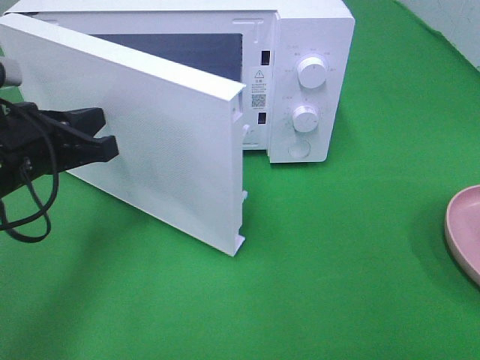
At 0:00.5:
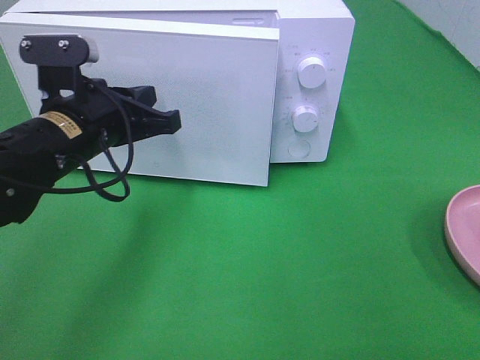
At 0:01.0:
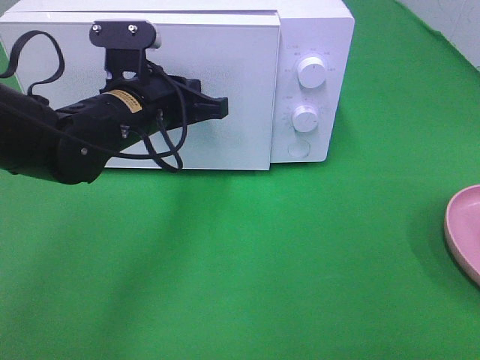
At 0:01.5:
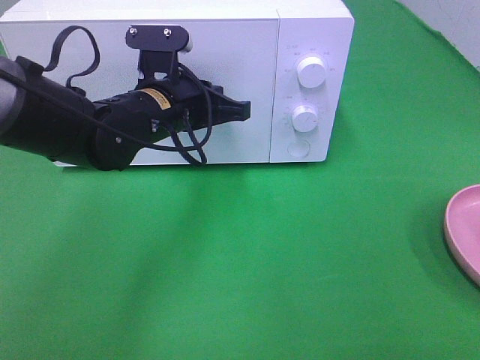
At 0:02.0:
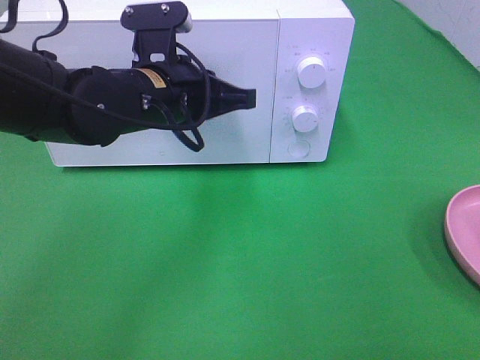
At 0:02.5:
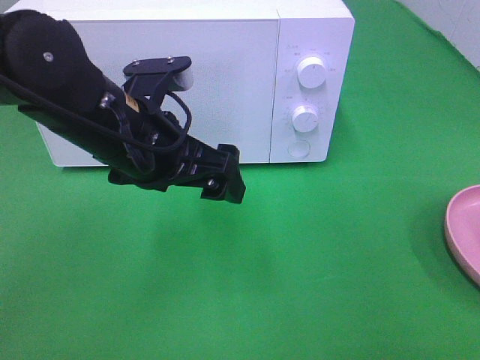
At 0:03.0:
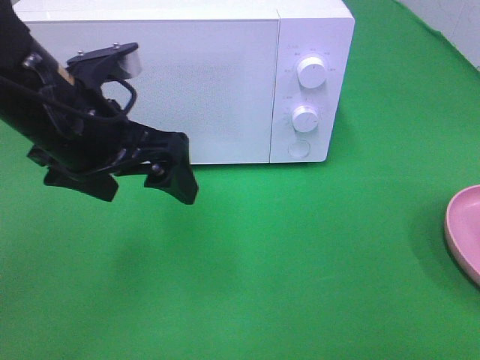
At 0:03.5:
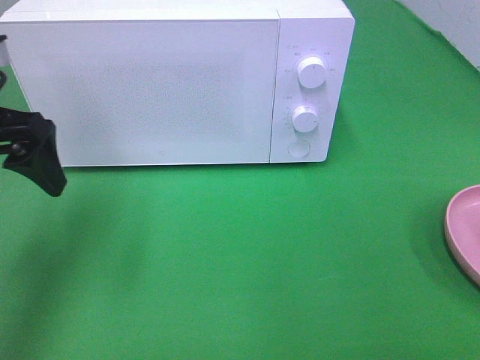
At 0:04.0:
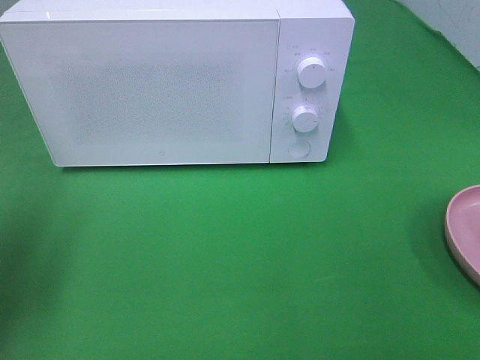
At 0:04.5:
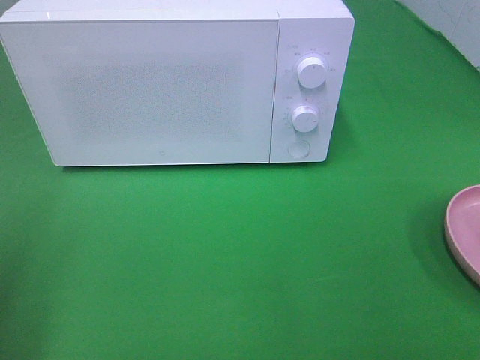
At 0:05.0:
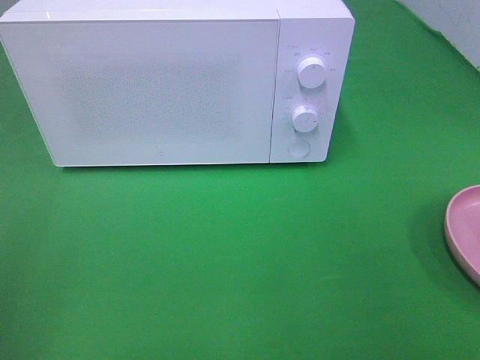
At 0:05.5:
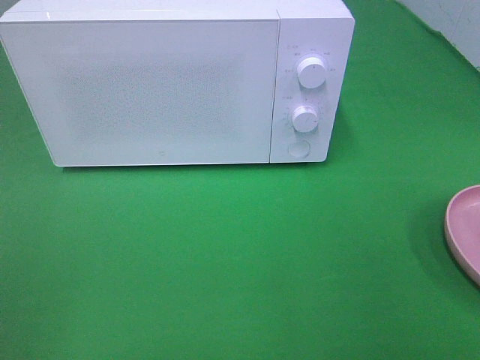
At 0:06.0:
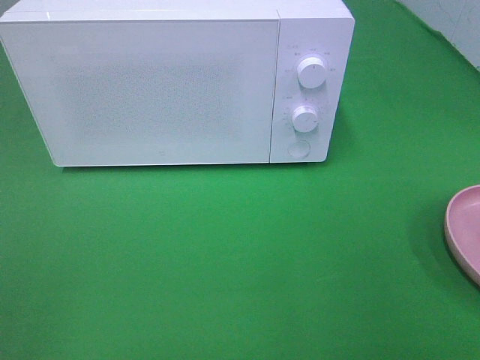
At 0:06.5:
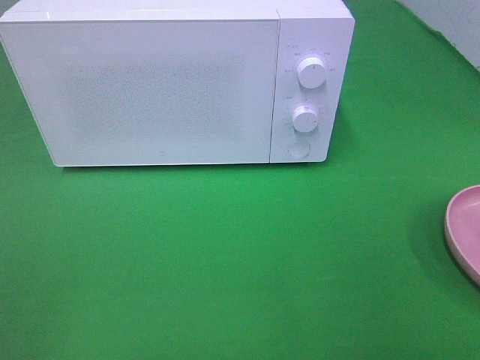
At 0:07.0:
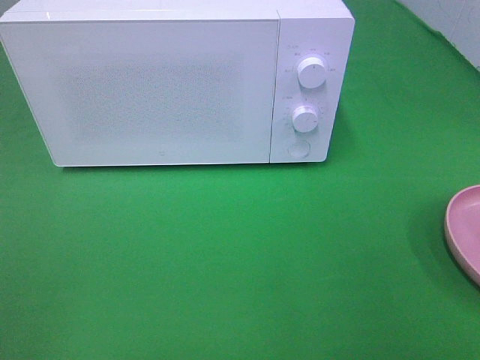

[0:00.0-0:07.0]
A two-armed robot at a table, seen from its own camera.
Task of the whole recording: Heat the burger.
Step, 0:00.0 to 0:02.0: Left hand: close the microwave door.
0:00.0 to 0:02.0: The left gripper heads to the right and forward, covering approximately 15 cm.
0:02.0 to 0:03.5: The left gripper travels to the left by approximately 20 cm, and opens up.
0:03.5 to 0:05.0: The left gripper heads backward, covering about 20 cm.

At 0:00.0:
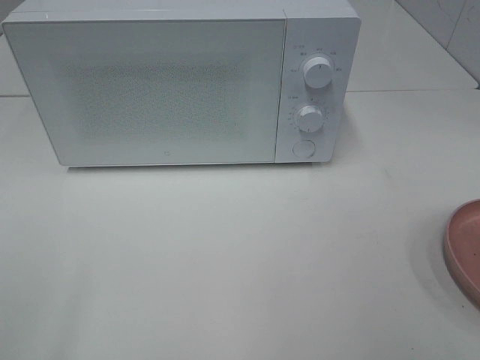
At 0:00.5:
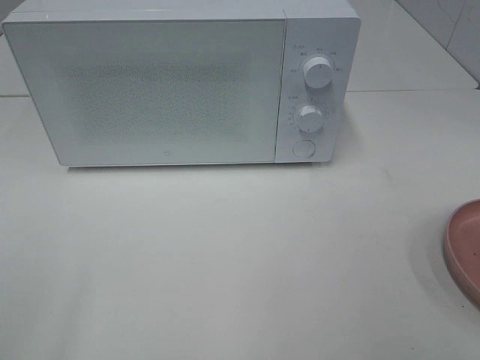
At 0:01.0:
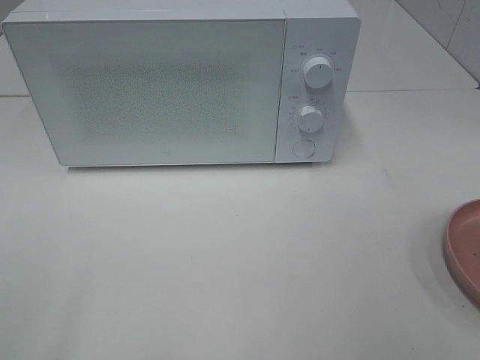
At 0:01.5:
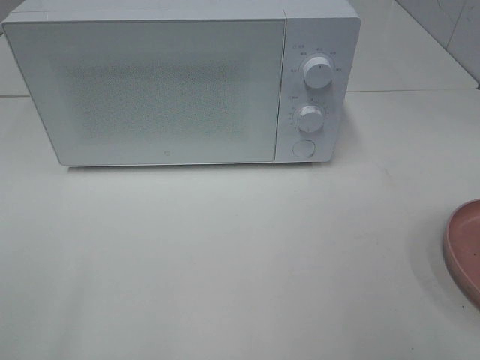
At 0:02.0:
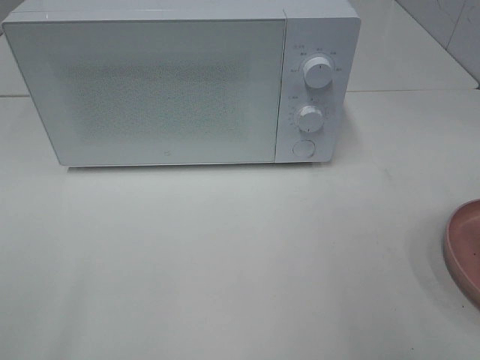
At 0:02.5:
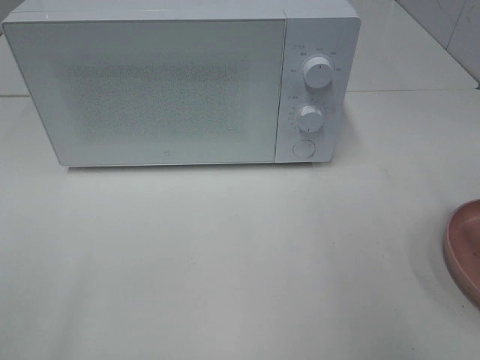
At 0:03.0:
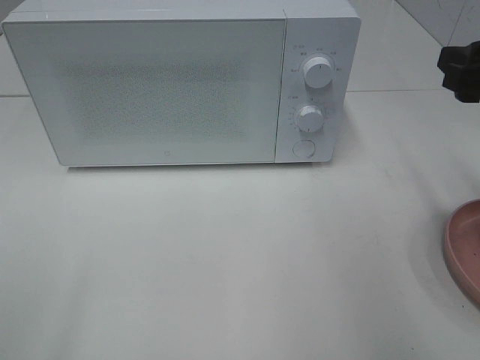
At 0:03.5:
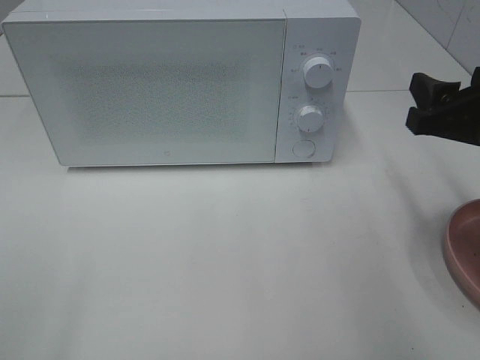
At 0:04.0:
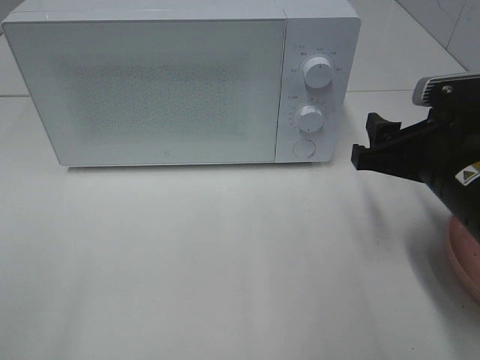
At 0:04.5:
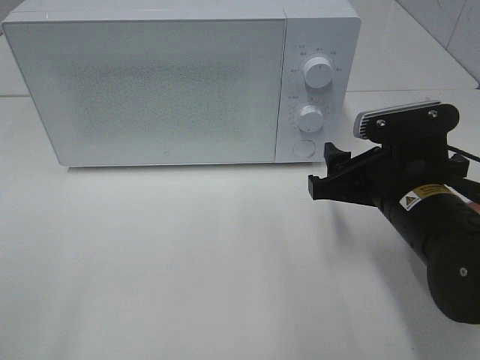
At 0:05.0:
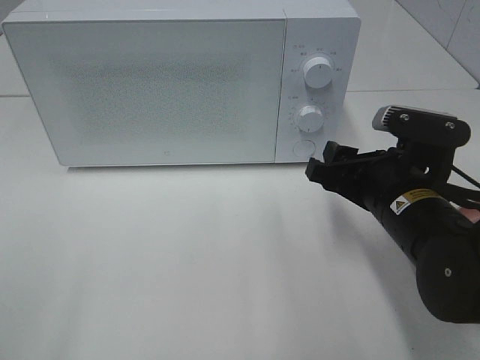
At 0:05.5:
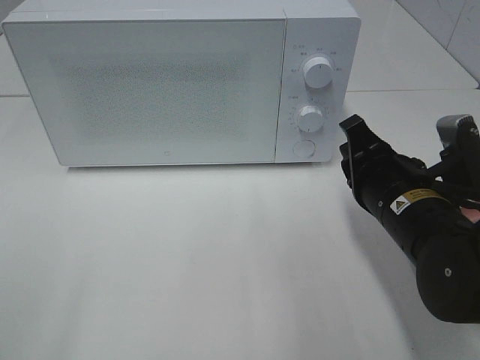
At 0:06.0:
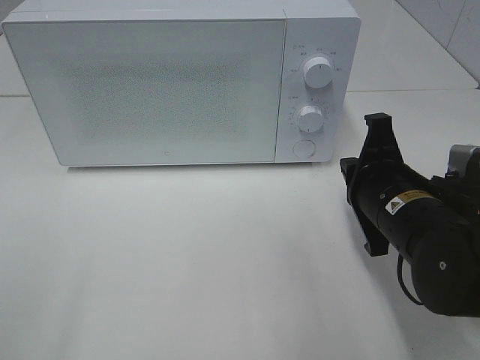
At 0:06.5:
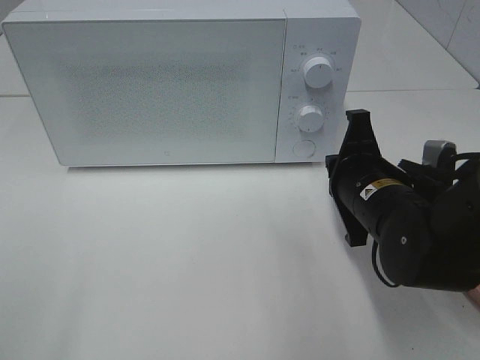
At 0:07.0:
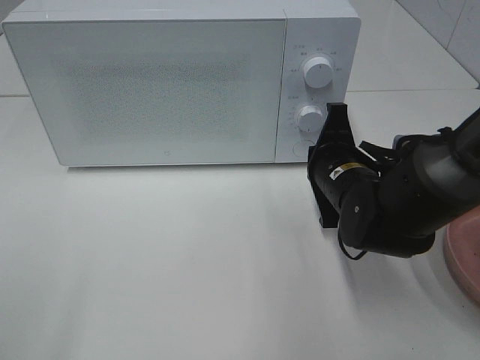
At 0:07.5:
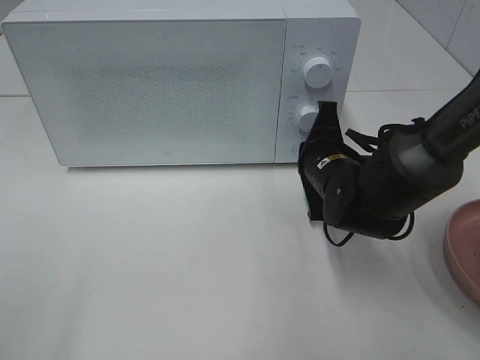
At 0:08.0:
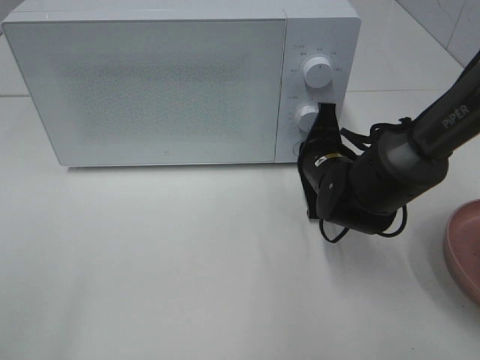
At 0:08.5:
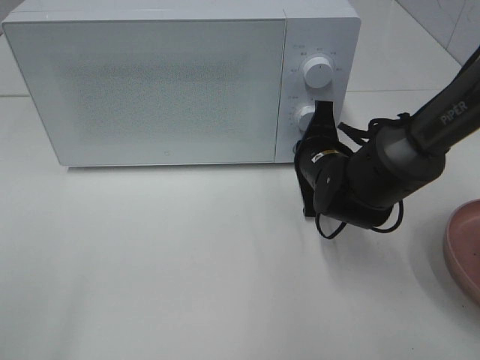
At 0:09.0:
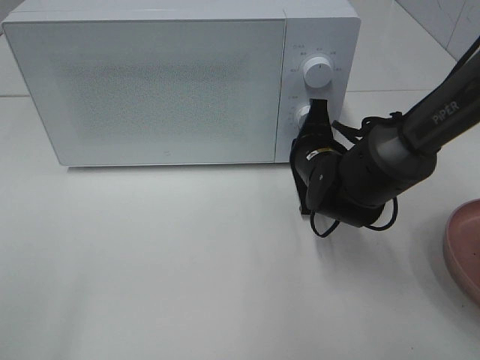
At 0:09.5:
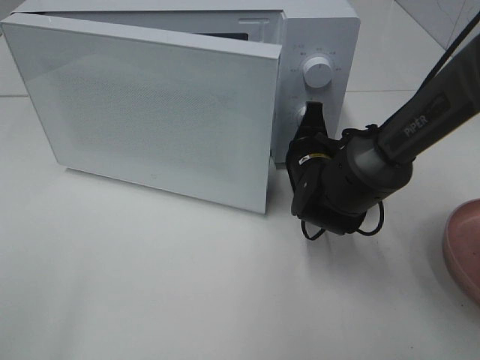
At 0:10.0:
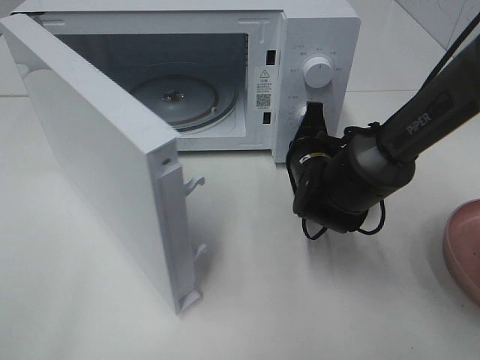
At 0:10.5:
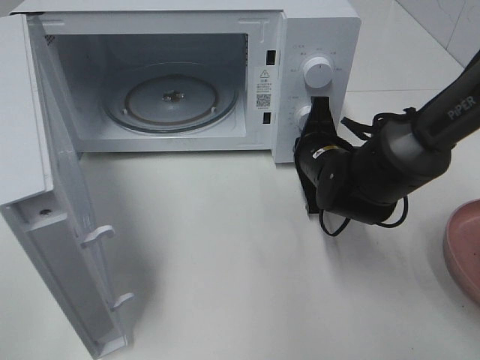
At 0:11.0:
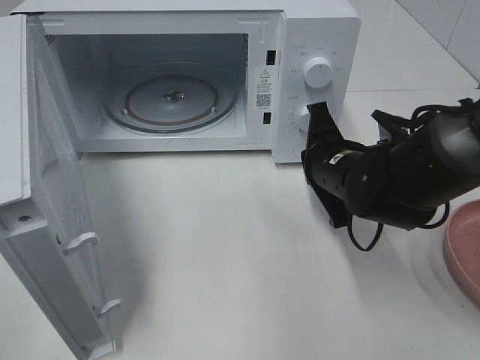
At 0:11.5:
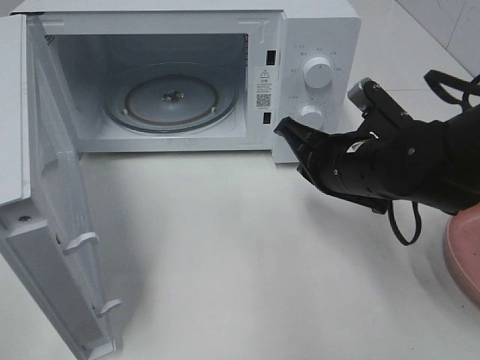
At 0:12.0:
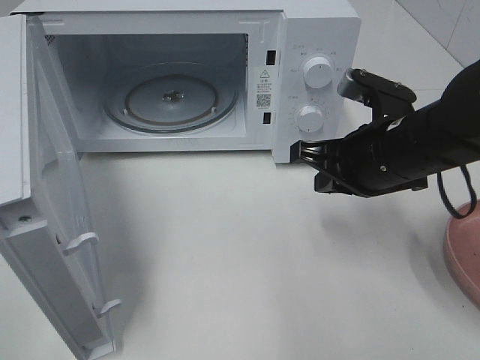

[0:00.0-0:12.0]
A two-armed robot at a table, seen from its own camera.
Task of the whole recording: Heat the burger.
Step, 0:00.0 to 0:10.5: Right hand: press the switch.
0:02.0 to 0:04.0: The right gripper heads downward, forward and to the left, covering approximately 20 cm.
0:04.0 to 0:06.0: The right gripper shifts by about 5 cm, and closes.
0:06.0 to 0:08.0: The right gripper is displaced forward by roughly 10 cm.
0:10.0 to 0:12.0: The right gripper shifts approximately 15 cm upward, backward and to the right.

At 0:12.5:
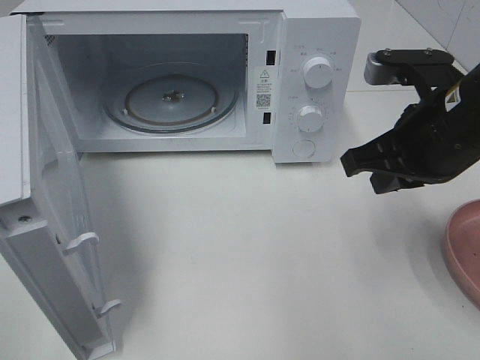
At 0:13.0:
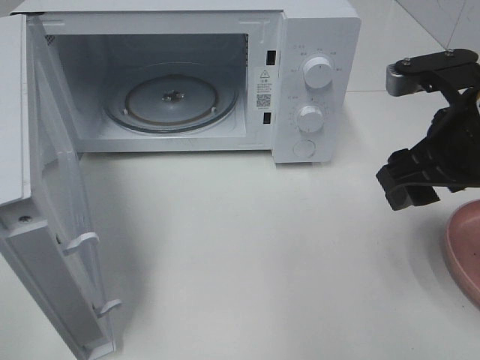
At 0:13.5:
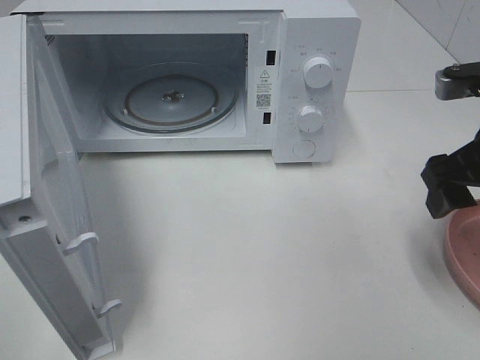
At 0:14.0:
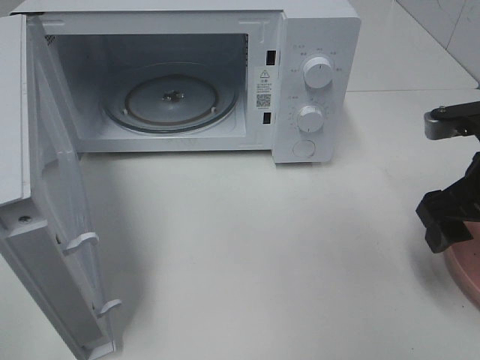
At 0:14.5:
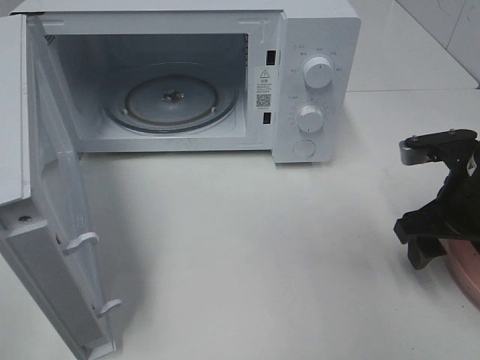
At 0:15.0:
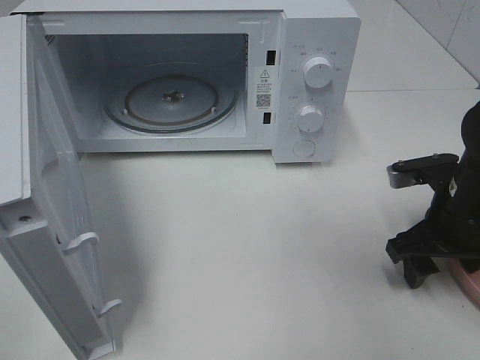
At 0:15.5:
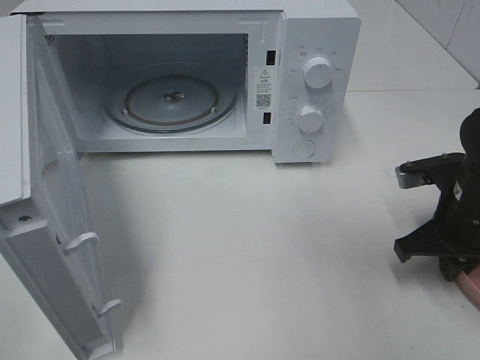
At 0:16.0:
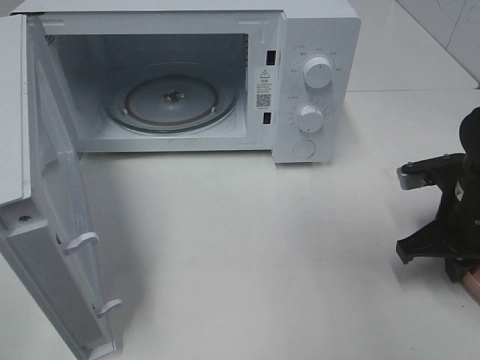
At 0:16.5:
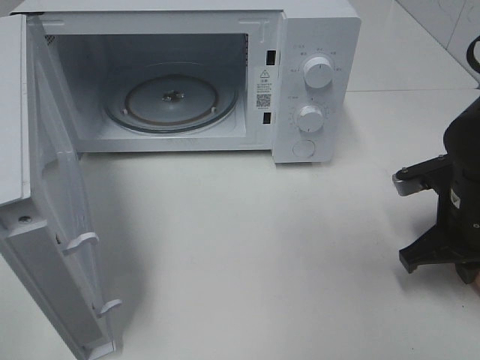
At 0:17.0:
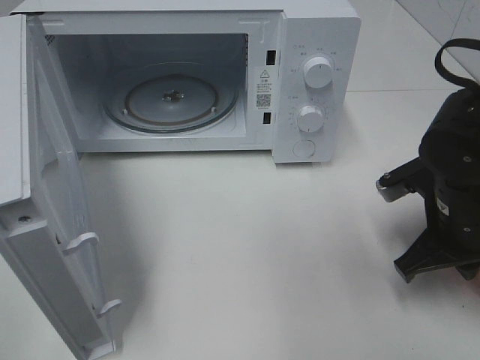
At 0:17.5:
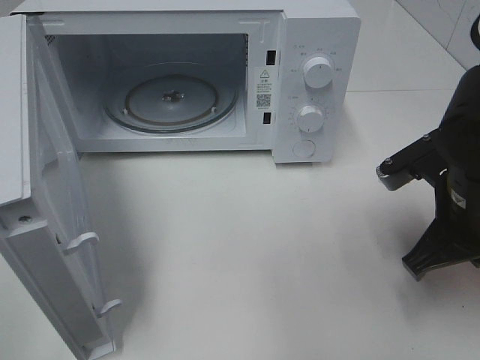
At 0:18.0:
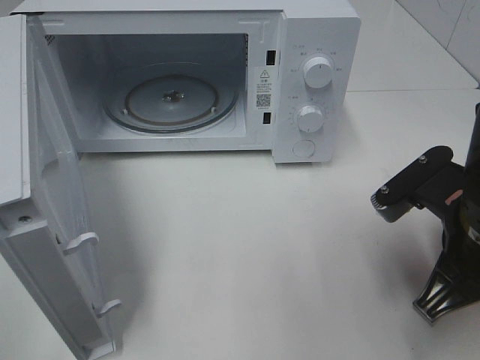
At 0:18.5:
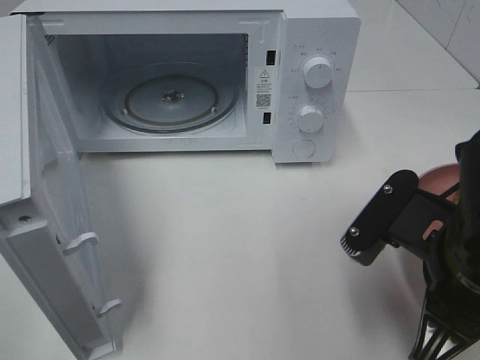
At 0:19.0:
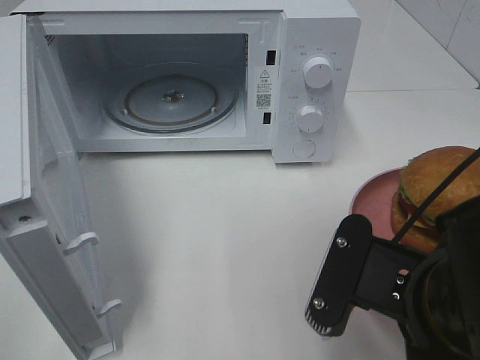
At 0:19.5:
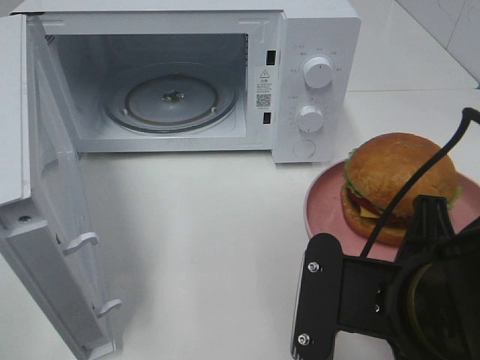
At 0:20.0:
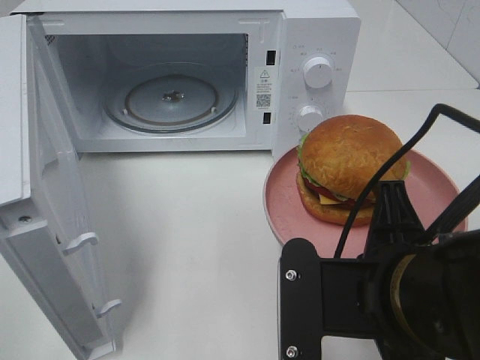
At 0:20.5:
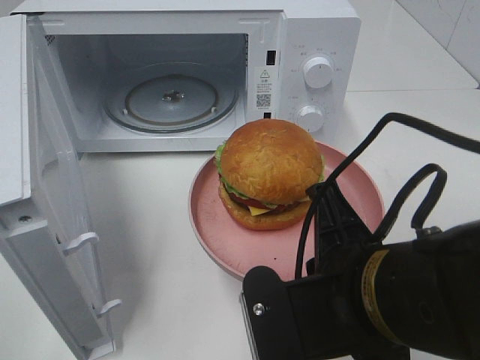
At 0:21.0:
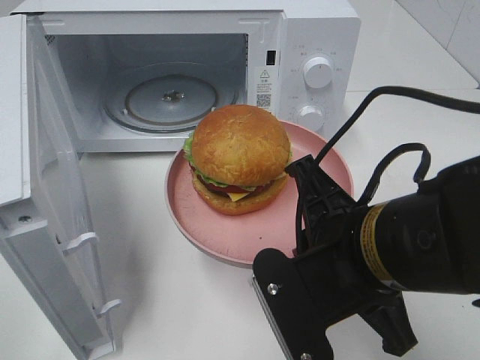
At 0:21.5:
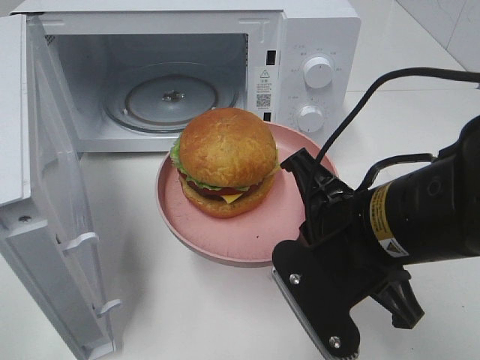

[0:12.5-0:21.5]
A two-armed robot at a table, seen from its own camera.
Task of the whole recording: Heat the burger.
Step, 0:12.5 to 0:15.5: Right hand: grab the plate with the hamburger.
0:12.5 to 0:14.5: The right gripper goes approximately 10 cm downward and to the right, and opens.
0:14.5 to 0:17.0: The right gripper closes.
0:17.0 to 0:19.5: The right gripper is displaced backward and to the left by roughly 15 cm.
0:19.5 to 0:21.5: The right gripper is displaced forward by about 5 cm.
